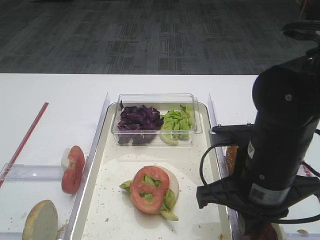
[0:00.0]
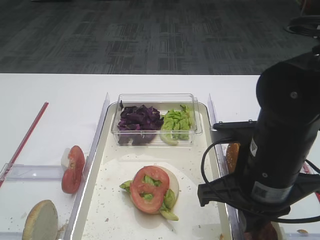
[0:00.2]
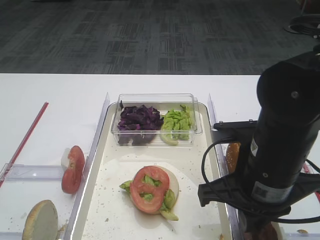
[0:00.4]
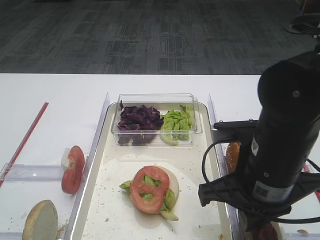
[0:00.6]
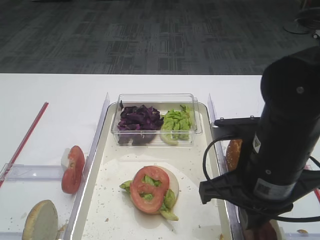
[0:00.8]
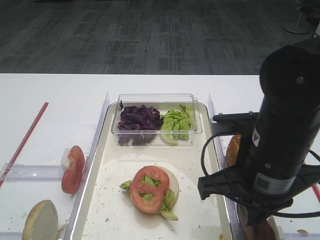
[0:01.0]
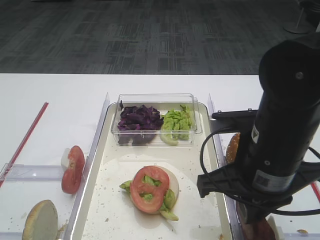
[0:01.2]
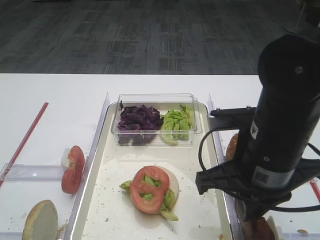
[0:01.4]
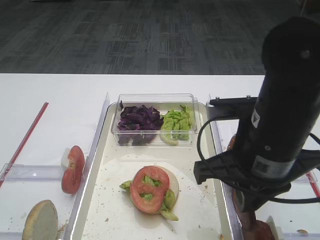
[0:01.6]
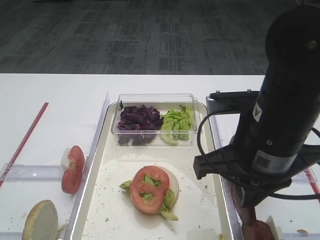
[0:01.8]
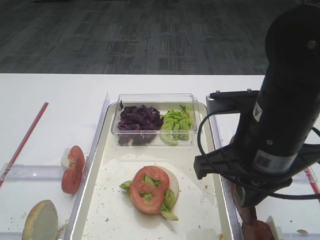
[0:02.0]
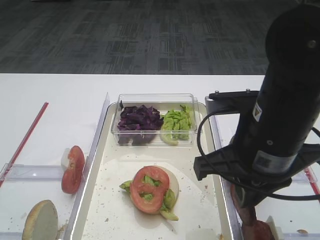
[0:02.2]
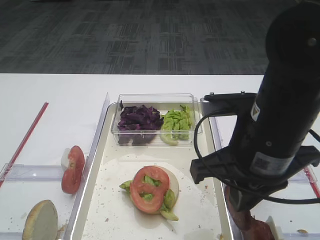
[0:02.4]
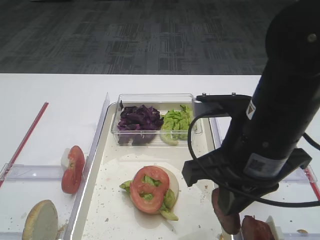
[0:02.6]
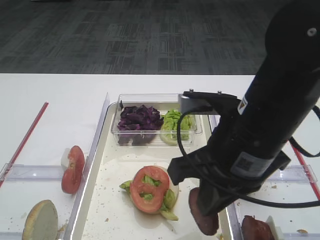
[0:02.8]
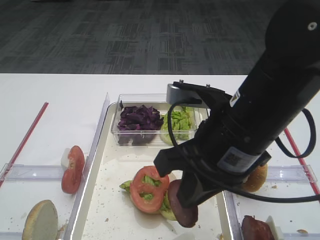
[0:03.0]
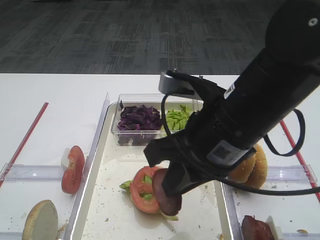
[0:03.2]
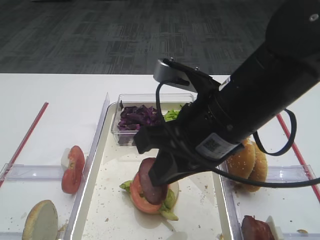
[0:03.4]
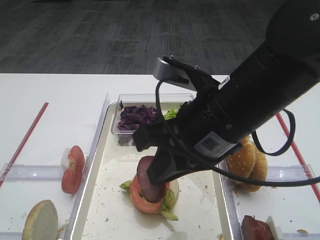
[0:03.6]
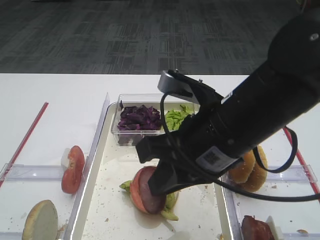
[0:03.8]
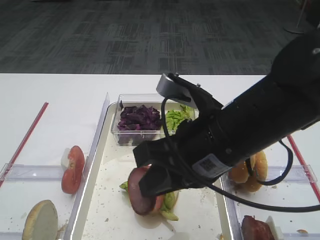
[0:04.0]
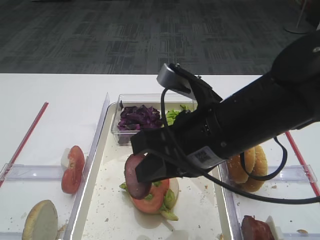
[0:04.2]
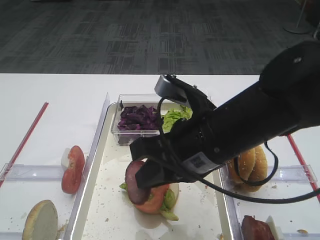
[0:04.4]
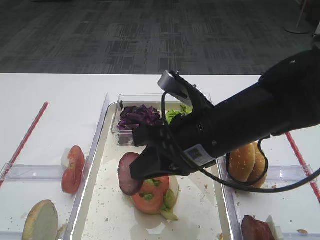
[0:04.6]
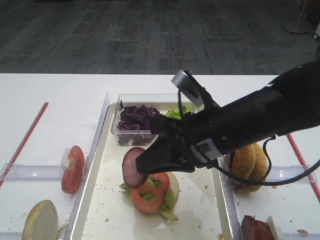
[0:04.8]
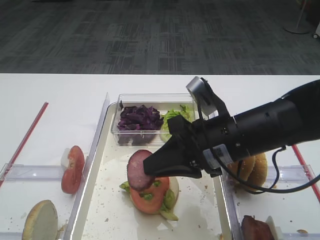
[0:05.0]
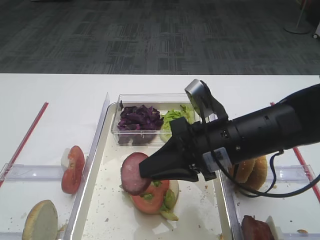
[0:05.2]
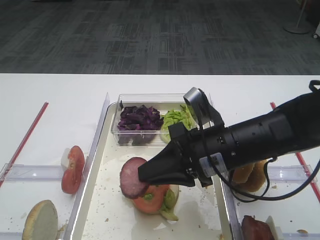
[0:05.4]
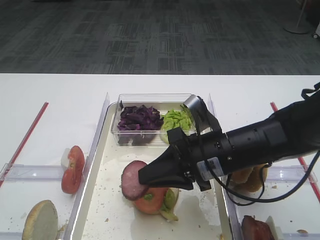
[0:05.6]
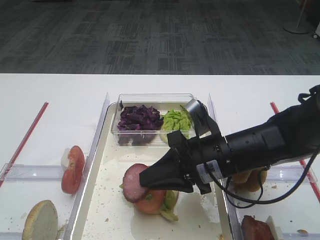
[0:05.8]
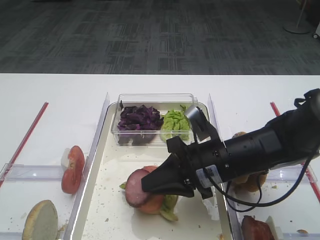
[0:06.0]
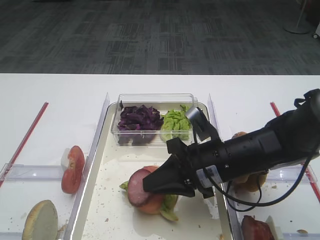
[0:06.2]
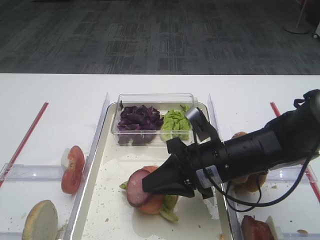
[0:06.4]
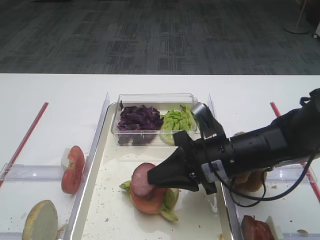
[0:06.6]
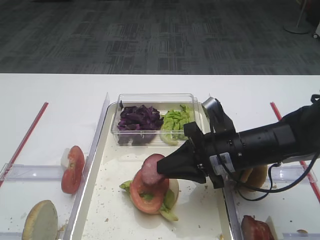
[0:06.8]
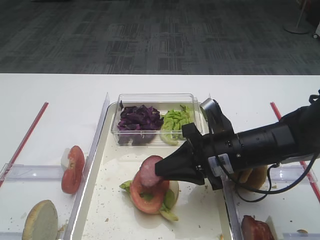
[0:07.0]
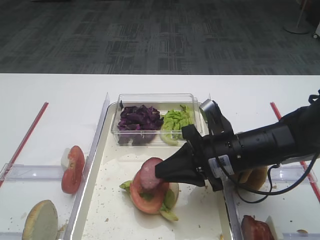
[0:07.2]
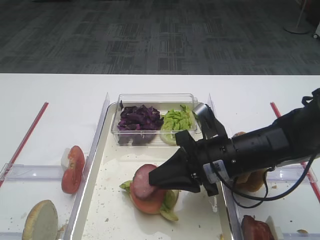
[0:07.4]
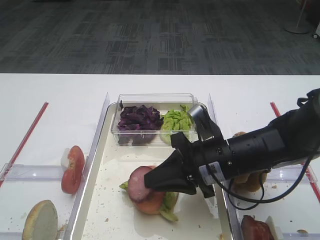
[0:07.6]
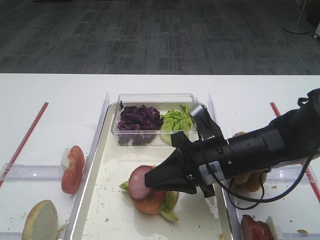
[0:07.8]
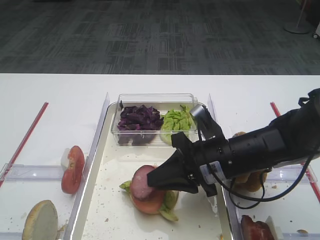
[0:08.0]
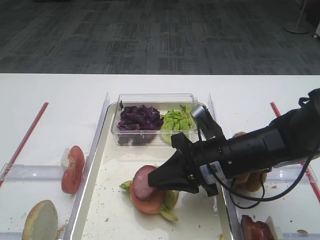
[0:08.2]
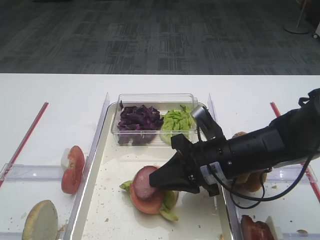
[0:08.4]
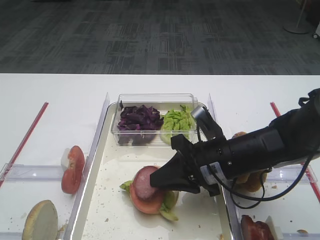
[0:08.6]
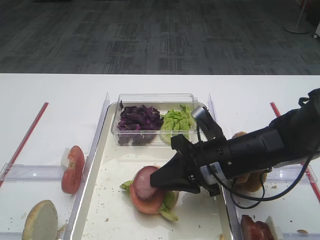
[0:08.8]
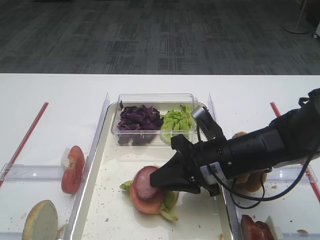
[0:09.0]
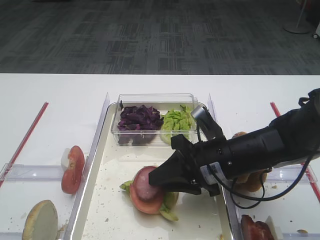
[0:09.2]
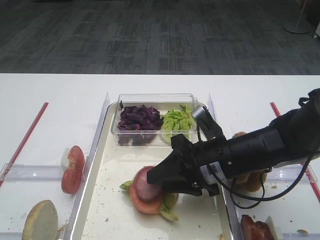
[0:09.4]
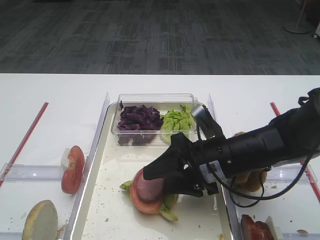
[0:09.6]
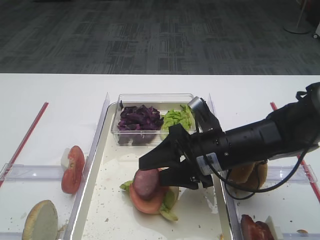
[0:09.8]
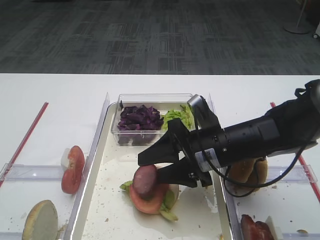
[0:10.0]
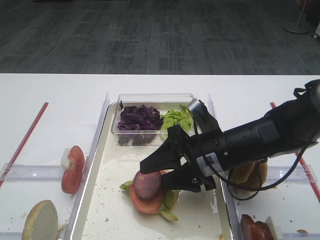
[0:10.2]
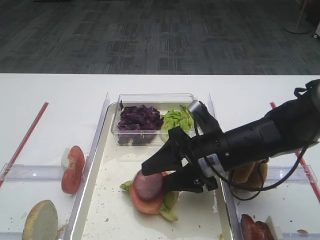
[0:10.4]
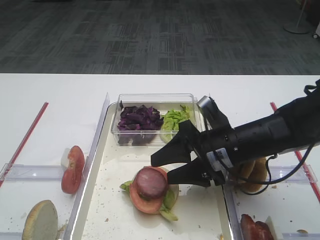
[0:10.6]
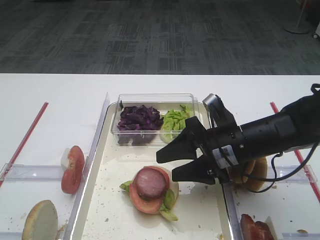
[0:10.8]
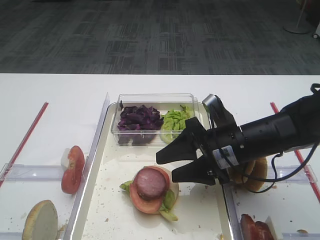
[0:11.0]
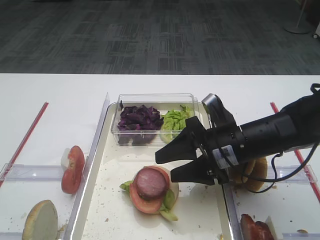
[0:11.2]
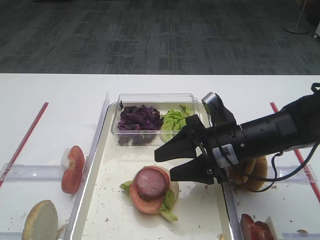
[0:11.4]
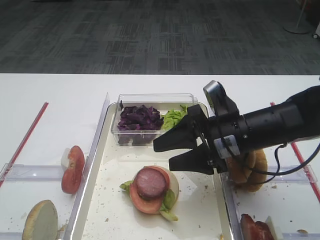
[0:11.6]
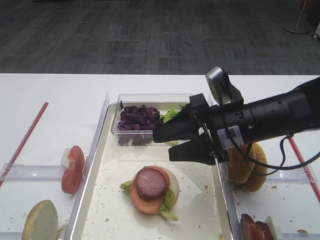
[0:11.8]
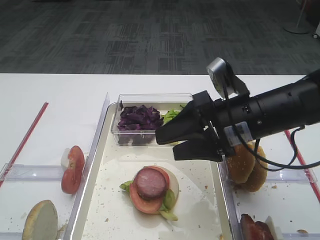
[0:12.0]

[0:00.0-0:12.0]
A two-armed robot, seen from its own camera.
Step, 0:00.0 to 0:02.0: Pick up the cutlet with the right gripper.
Step, 0:02.2 to 0:11.6: Place the cutlet on the tomato slice with the right gripper.
0:00.0 to 0:01.6: The grippers make only small movements.
0:04.4 to 0:06.0: The right gripper goes about 10 cm downward.
0:06.0 to 0:09.0: The grippers make only small movements.
0:09.0 to 0:10.4: The right gripper opens.
0:10.4 to 0:12.0: The right gripper travels upward by approximately 5 cm.

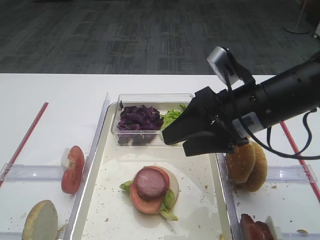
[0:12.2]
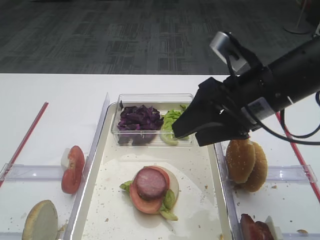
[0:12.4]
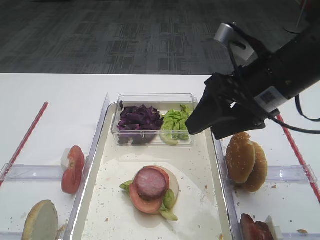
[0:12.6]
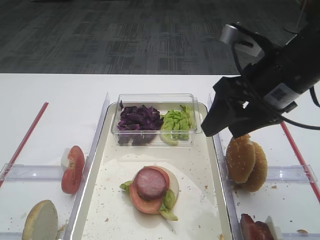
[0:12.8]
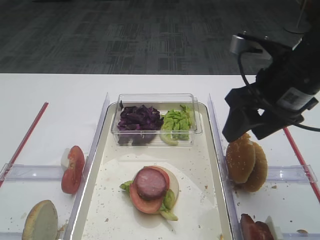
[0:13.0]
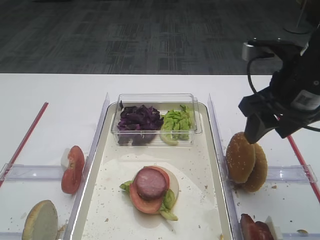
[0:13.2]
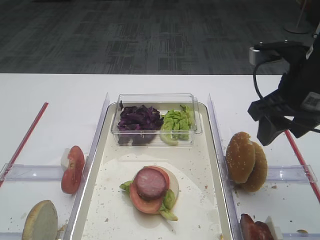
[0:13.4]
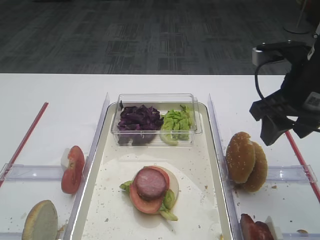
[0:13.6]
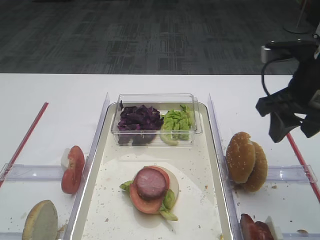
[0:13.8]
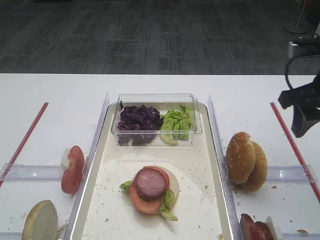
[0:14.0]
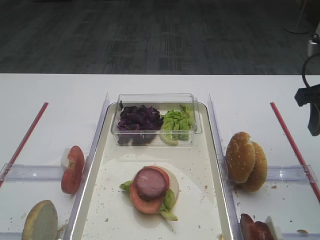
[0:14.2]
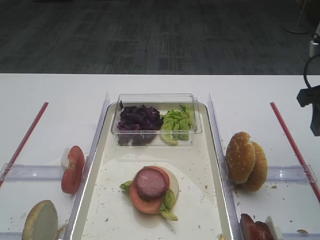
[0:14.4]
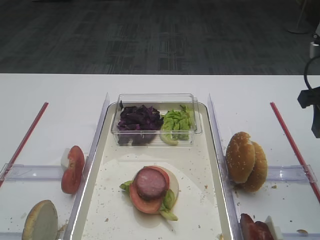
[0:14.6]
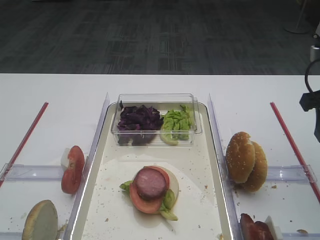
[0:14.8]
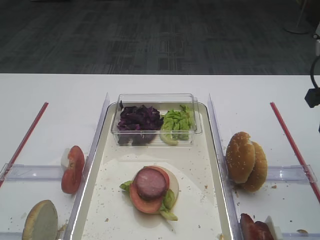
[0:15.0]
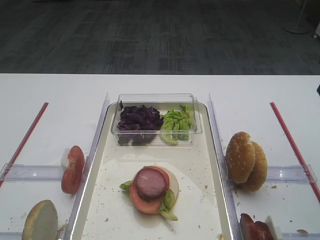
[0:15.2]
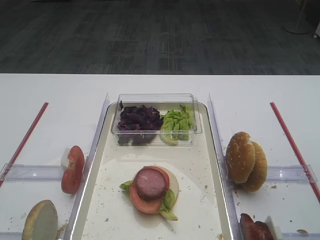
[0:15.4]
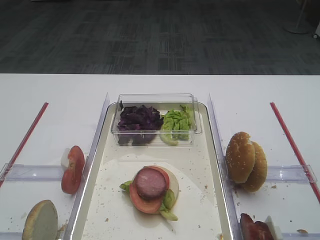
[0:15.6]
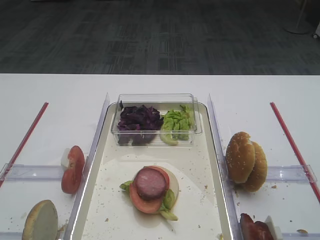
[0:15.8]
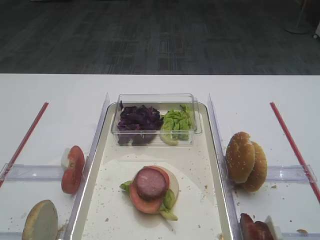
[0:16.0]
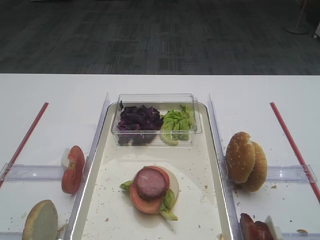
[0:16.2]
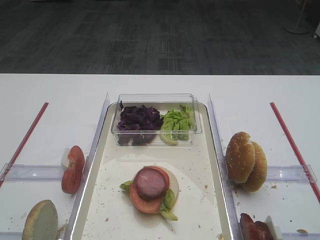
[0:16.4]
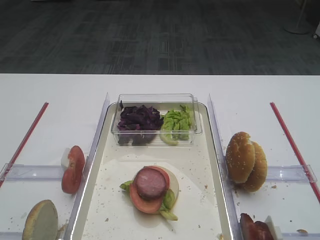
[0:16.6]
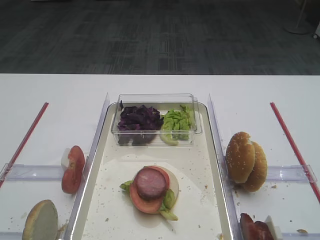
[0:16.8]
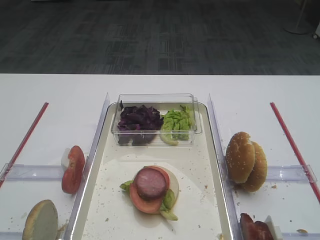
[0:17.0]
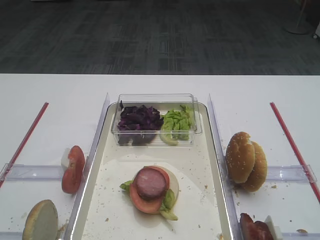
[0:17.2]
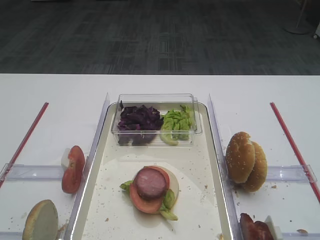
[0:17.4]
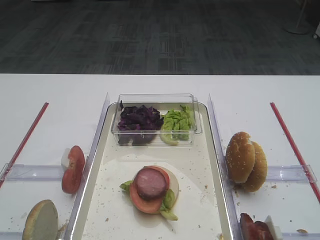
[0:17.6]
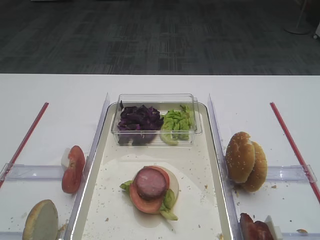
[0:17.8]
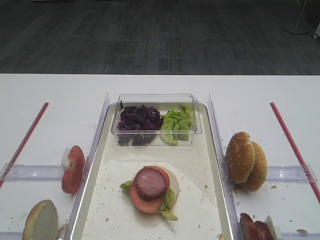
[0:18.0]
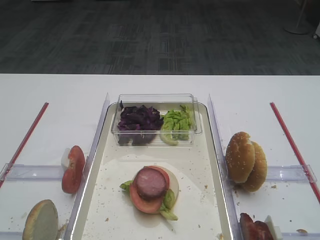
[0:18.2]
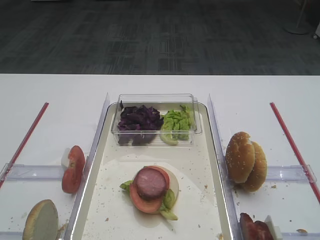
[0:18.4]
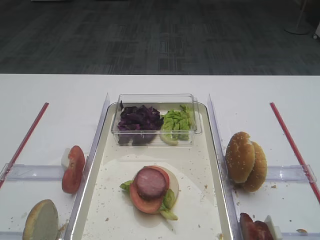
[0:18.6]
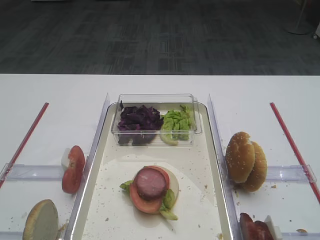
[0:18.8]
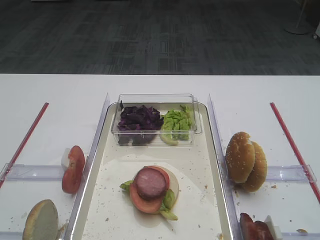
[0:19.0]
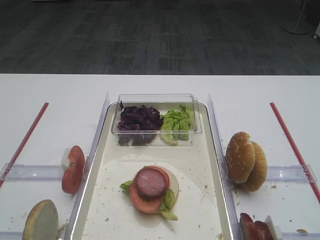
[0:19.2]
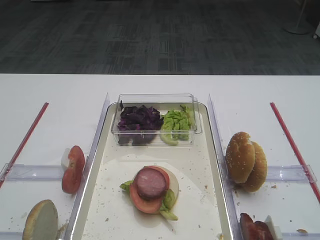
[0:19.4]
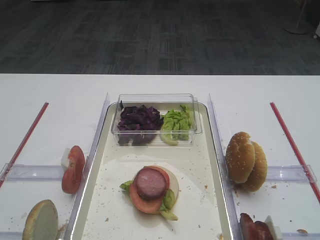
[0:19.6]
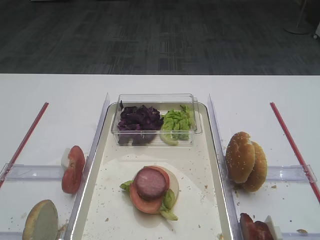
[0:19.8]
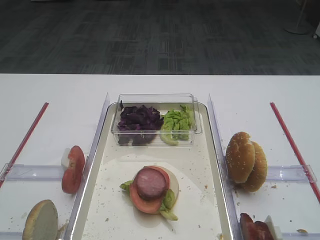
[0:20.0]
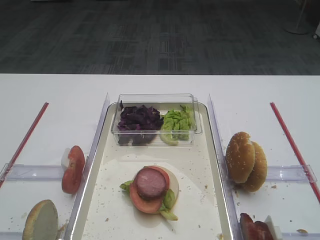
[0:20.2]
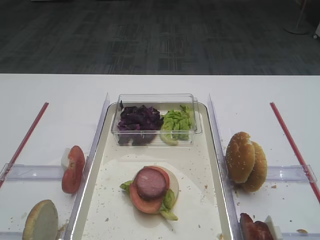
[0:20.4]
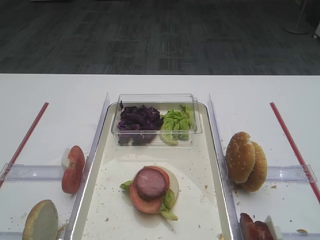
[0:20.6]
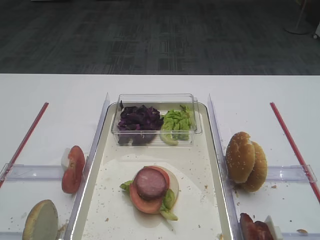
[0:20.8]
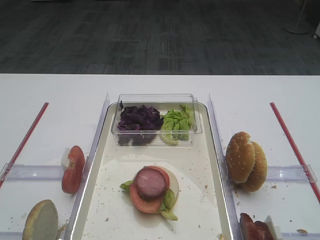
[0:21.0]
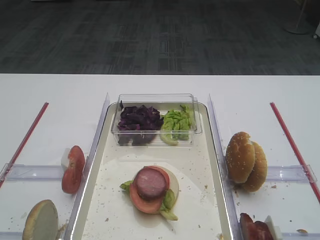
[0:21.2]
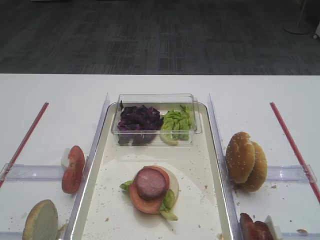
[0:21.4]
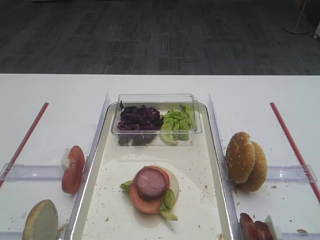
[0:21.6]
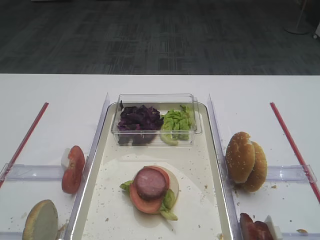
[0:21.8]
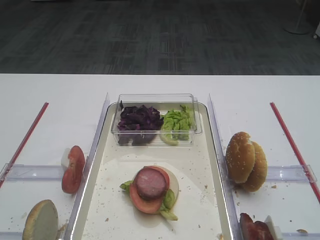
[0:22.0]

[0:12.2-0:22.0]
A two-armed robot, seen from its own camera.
0:12.2 to 0:13.6: The right gripper goes about 5 cm to the right.
0:13.6 to 0:15.0: The right gripper goes approximately 5 cm to the right.
0:15.0 to 0:16.4: The right gripper is displaced backward by some 20 cm.
0:17.8 to 0:20.6: Both grippers stay put.

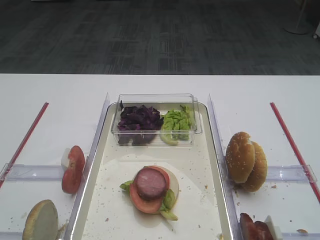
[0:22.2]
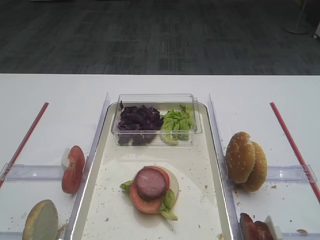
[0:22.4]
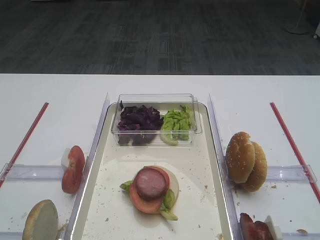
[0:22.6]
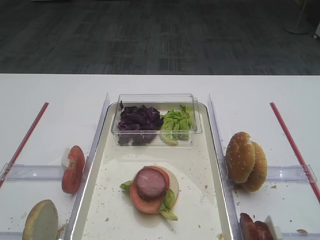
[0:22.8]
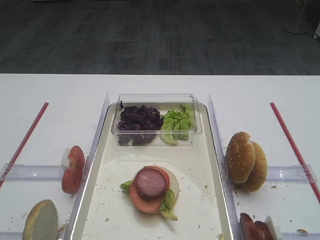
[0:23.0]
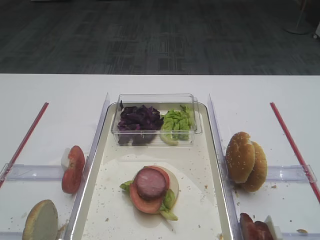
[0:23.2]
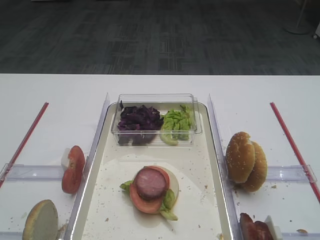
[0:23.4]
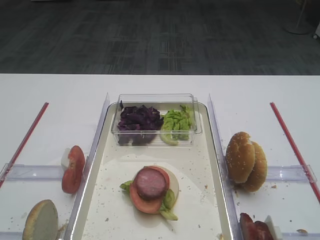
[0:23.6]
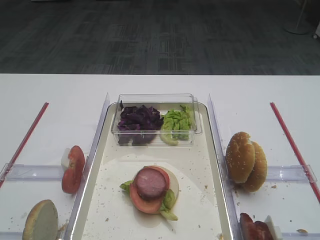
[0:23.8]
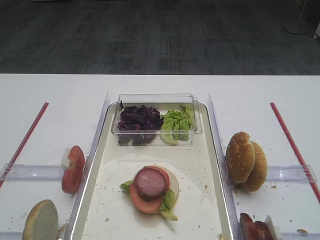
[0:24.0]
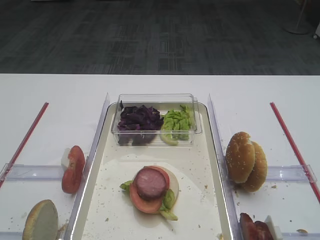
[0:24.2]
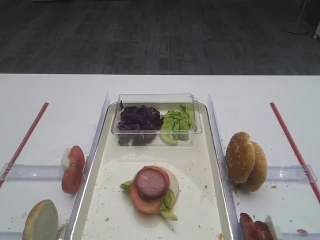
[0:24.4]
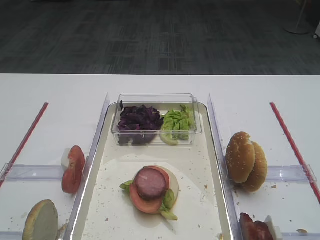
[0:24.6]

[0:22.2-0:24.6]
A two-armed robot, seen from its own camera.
0:22.2 to 0:24.6: Neither gripper changes place.
